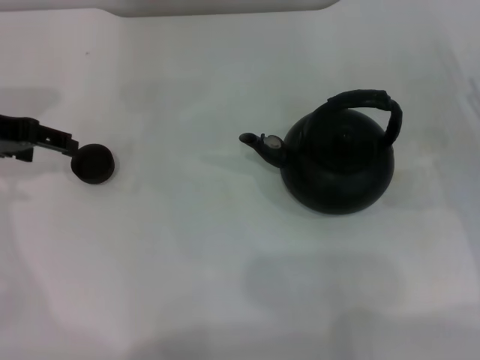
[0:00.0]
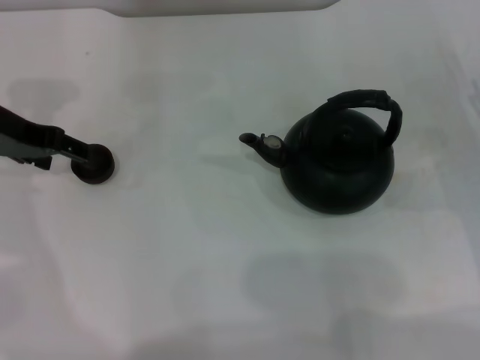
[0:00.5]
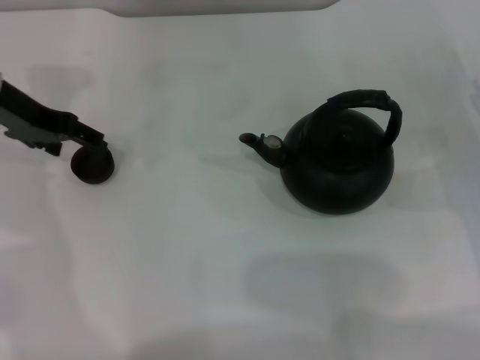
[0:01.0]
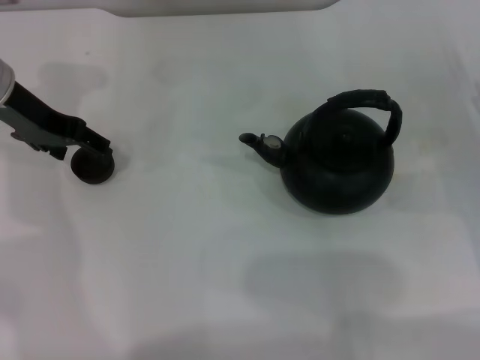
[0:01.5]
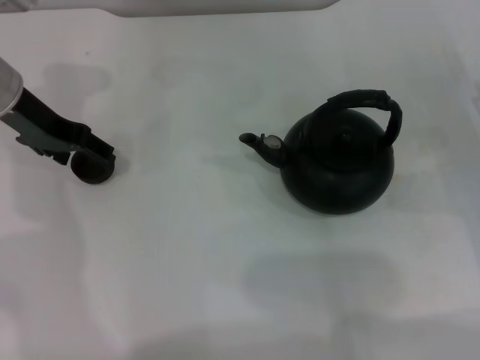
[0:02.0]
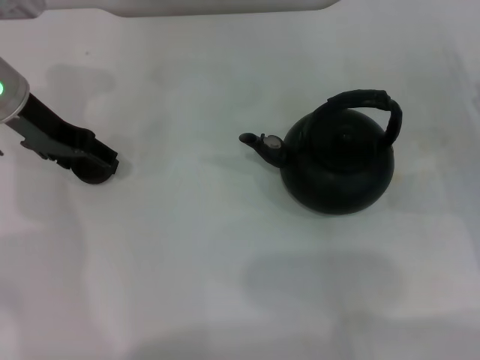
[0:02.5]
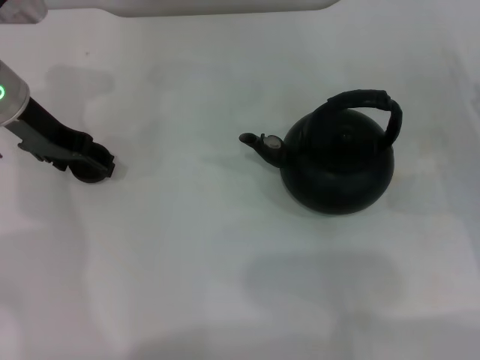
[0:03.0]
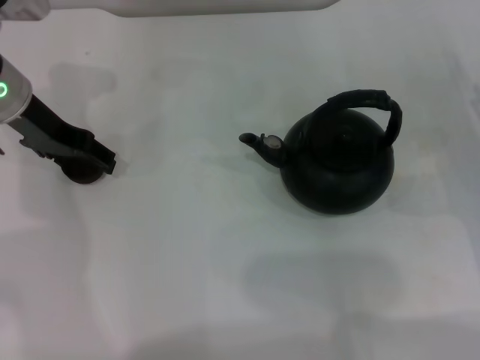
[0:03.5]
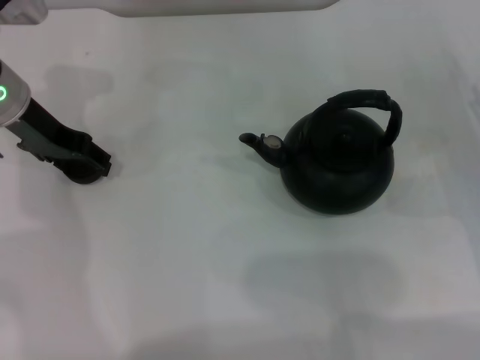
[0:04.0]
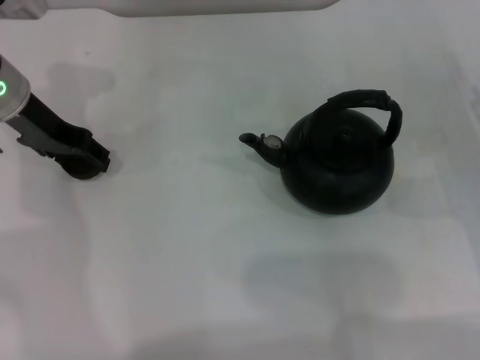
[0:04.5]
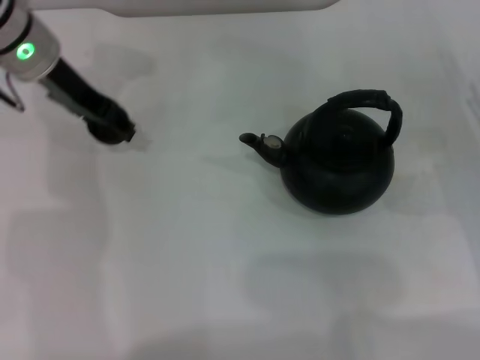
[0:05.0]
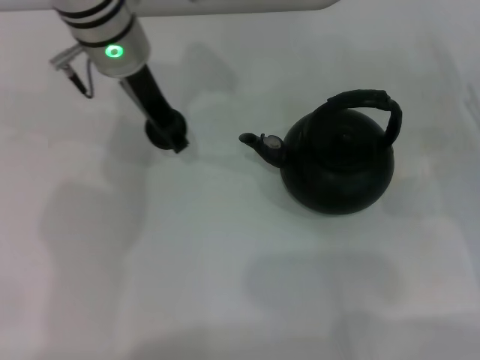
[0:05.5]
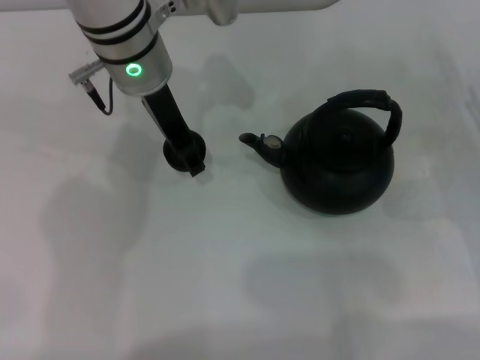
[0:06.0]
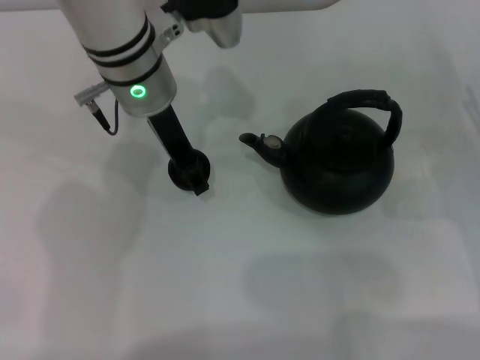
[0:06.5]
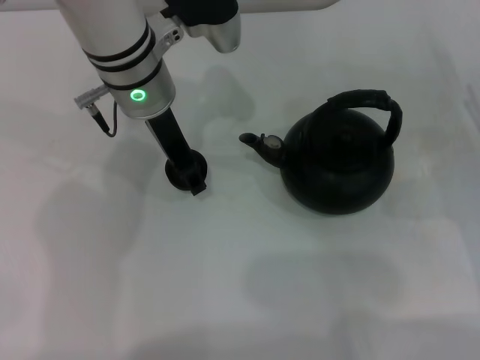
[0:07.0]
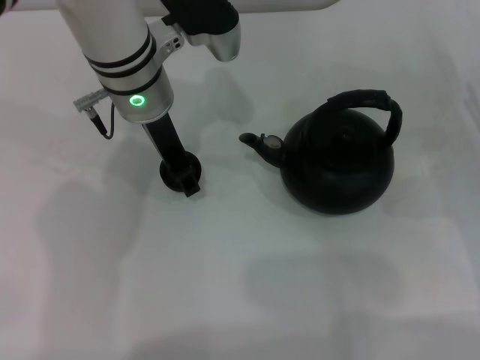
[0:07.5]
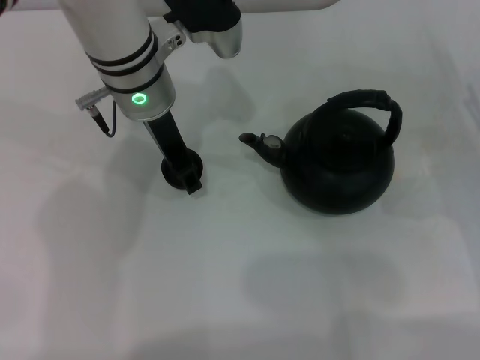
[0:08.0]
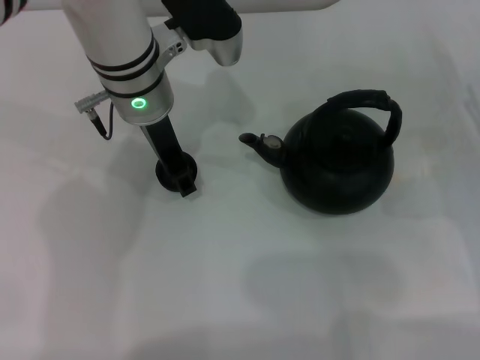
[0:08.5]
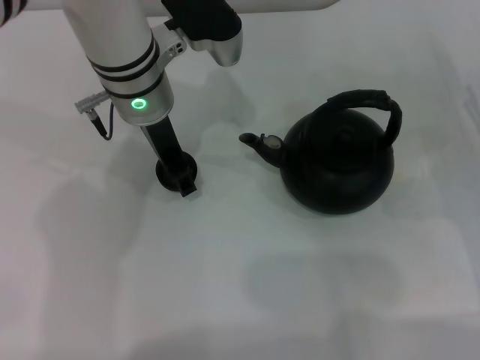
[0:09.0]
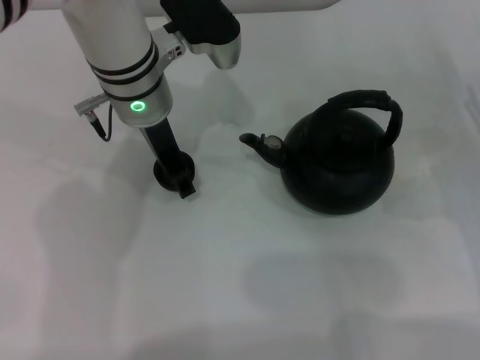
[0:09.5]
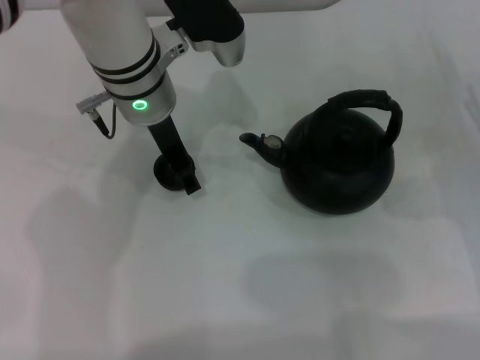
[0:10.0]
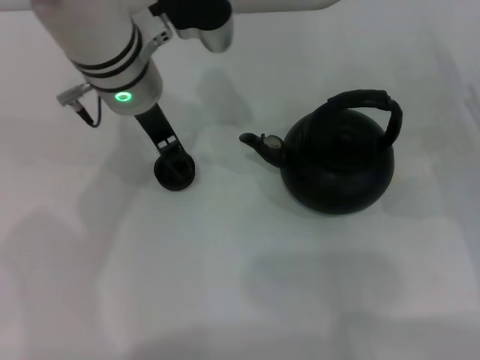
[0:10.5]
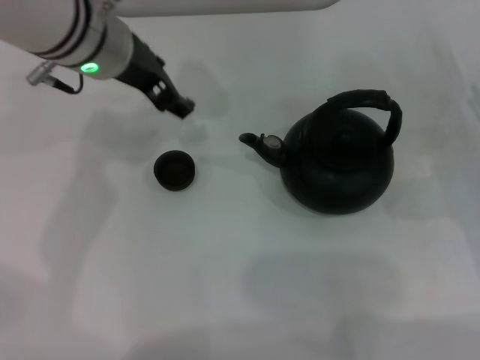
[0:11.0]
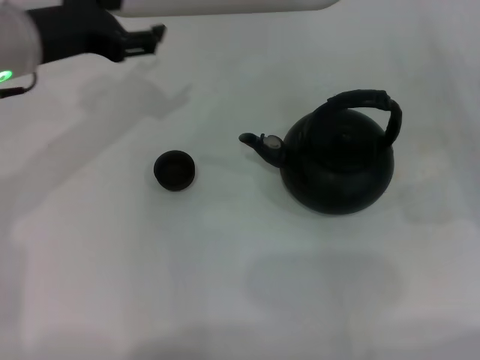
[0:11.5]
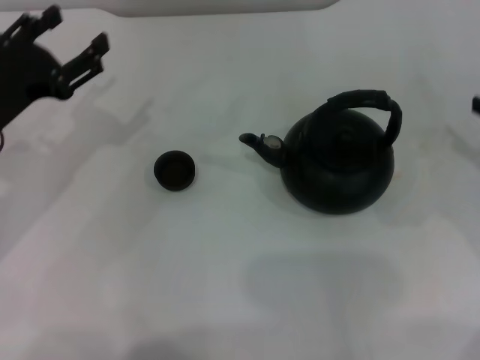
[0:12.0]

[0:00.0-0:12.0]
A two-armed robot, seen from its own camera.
Task of the whole recording: Grasp the handle of the teapot with one hand and pour tea into the teacup.
Step, 0:00.0 to 0:04.5: Pick up the teacup with the left gripper.
Step, 0:05.0 to 0:10.5: Place the teacup in the center of view with the left gripper.
0:00.0 to 0:02.0: The left gripper goes roughly 5 cm to the right and forward.
0:02.0 to 0:04.0: Neither gripper changes place.
0:04.0 to 0:06.0: The left gripper shifts approximately 15 cm to the right, and closes its fingers.
0:06.0 to 0:08.0: There are only small adjustments of the grippers.
0:08.0 to 0:10.0: The left gripper opens its fingers.
0:10.0 to 0:12.0: The left gripper shifts approximately 20 cm to the left and backward. The right gripper shifts approximately 5 cm upward.

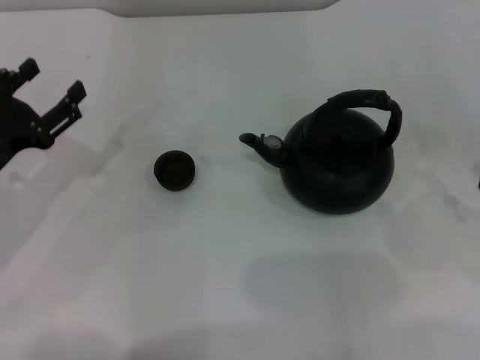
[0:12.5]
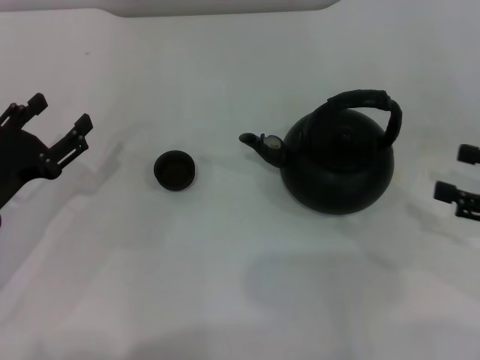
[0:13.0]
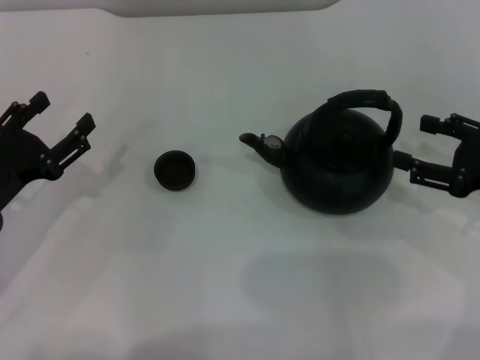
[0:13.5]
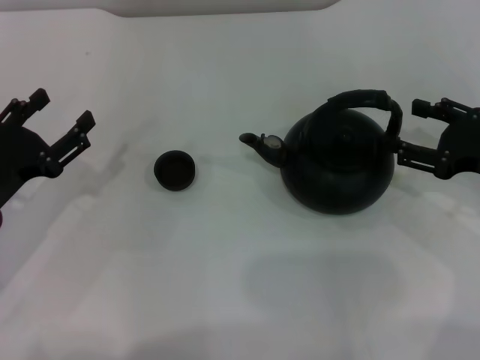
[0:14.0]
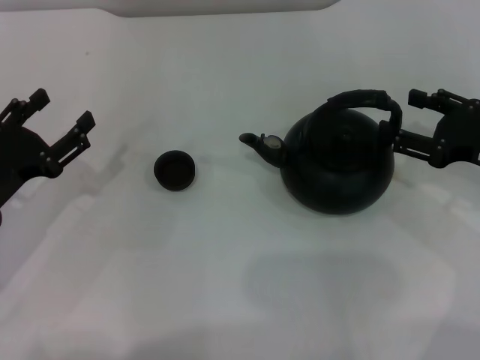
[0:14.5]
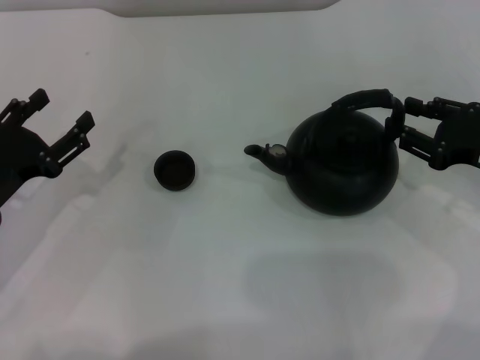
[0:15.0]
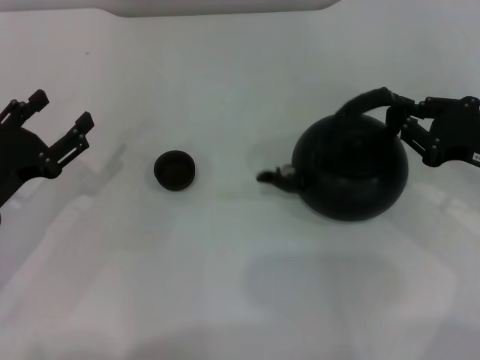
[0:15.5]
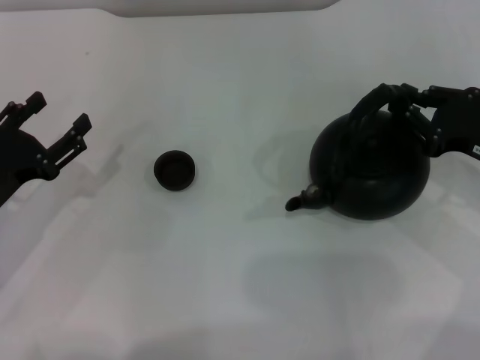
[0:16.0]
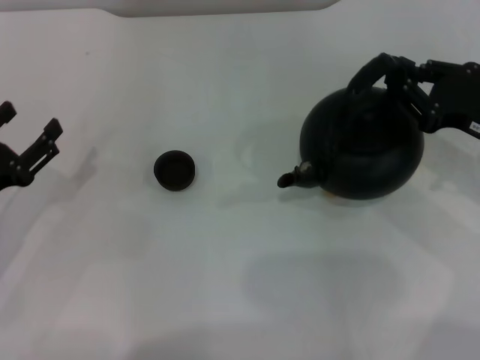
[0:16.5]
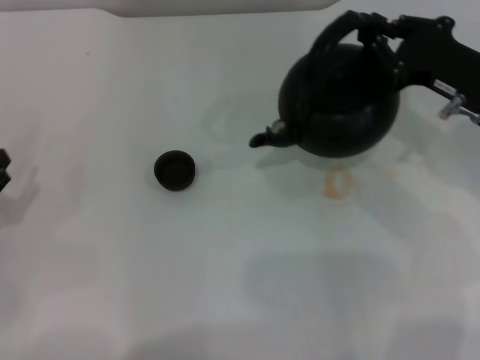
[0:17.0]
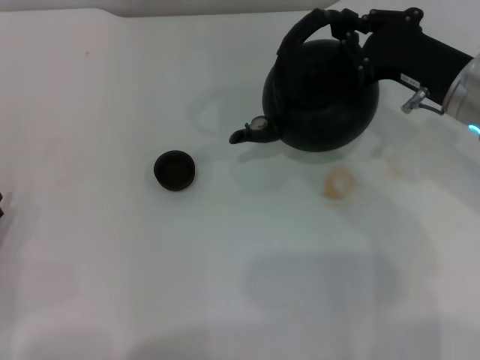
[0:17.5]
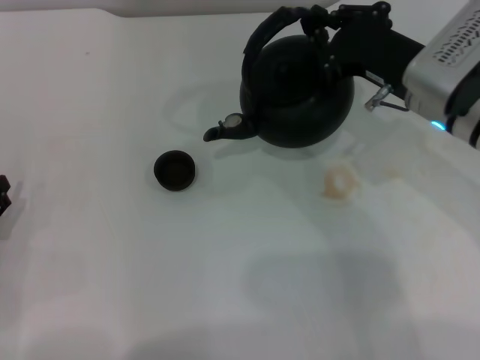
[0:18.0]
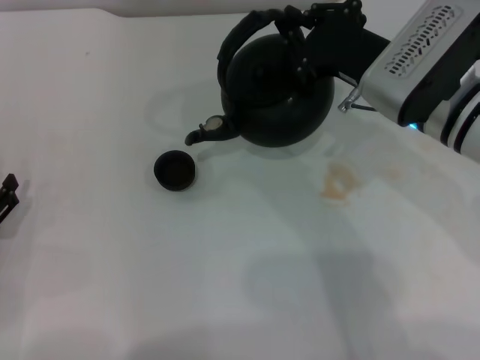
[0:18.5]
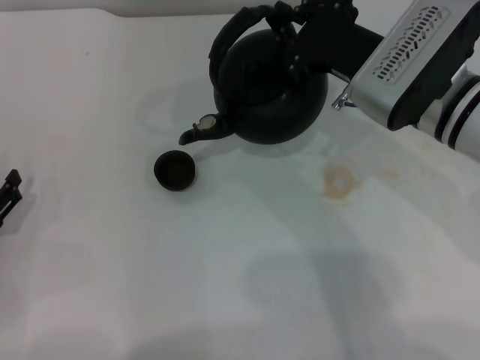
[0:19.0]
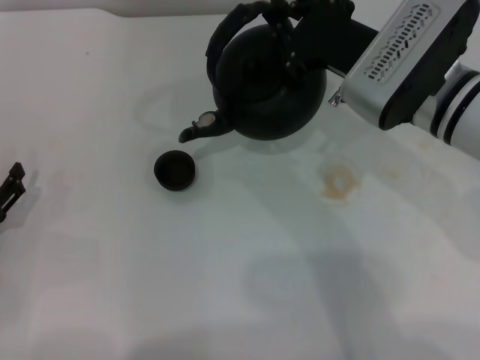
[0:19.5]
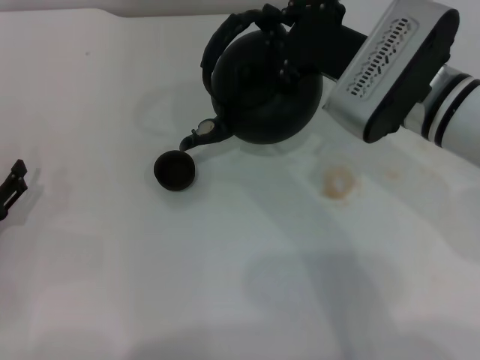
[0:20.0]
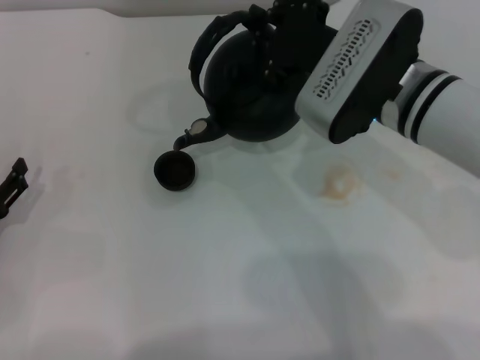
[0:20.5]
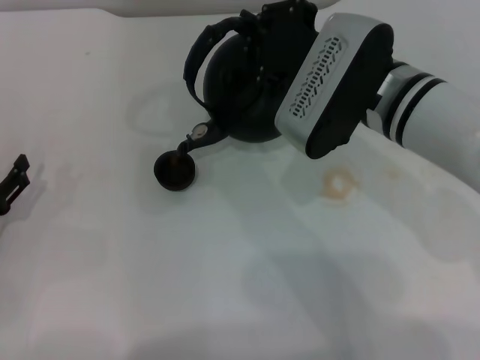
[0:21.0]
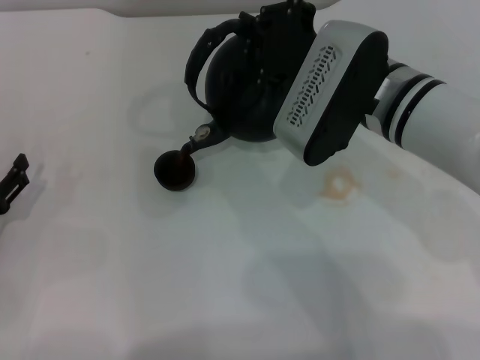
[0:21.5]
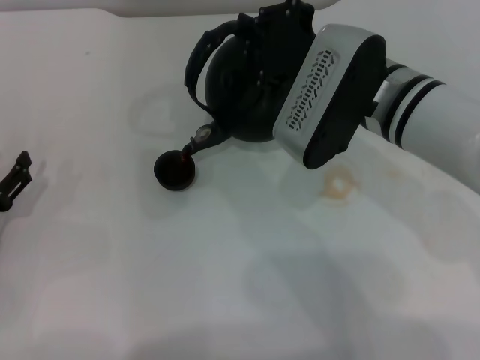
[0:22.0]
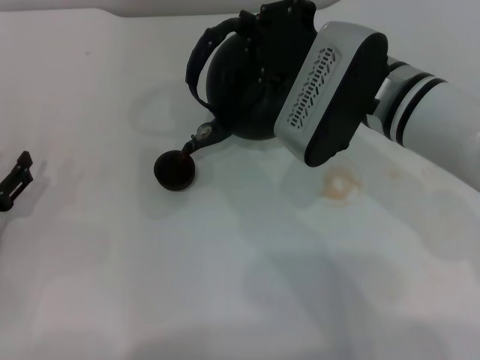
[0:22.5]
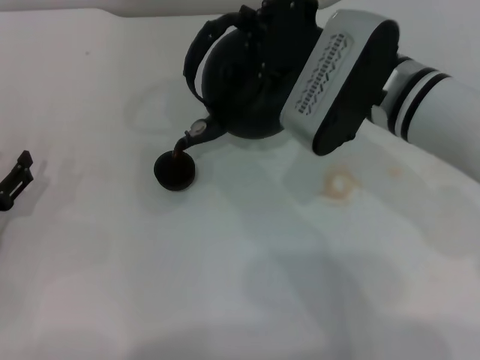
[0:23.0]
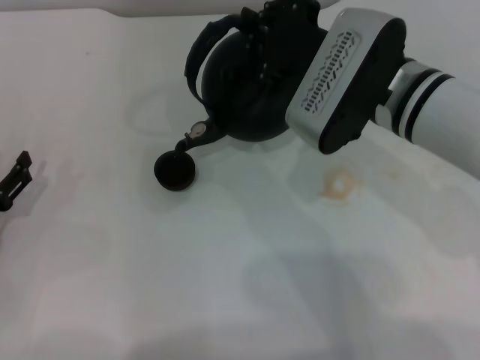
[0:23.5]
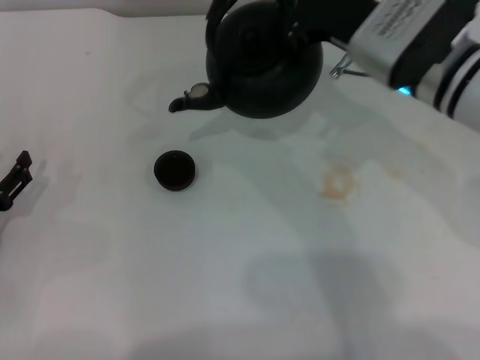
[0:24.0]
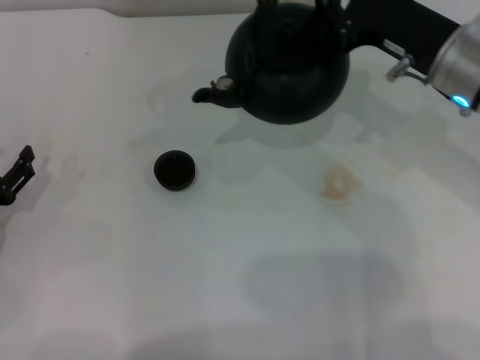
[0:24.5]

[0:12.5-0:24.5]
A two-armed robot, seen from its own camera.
Task of the whole recording: Grasp the handle of the teapot with one hand and pour tea into the teacup.
Step, 0:12.5 to 0:16.5: Pick up the teapot with the right gripper.
Step, 0:17.0 to 0:23.5: Pour tea into the teacup with the right gripper.
0:12.5 to 0:14.5: The right gripper goes about 10 cm to the left and forward.
0:14.5 to 0:16.5: The right gripper closes.
0:16.5 to 0:18.5: The left gripper ends up roughly 5 cm from where it was. The right gripper shifts approximately 15 cm to the left.
0:18.5 to 0:20.5: The grippers stay close to where they were, moving slightly.
0:20.5 to 0:22.5: The grippers stay close to where they were, moving slightly.
0:22.5 to 0:24.5: The right gripper moves to the right, roughly 10 cm.

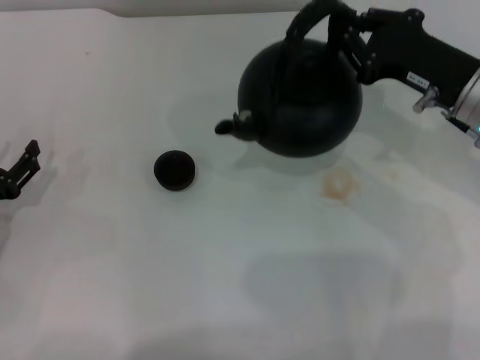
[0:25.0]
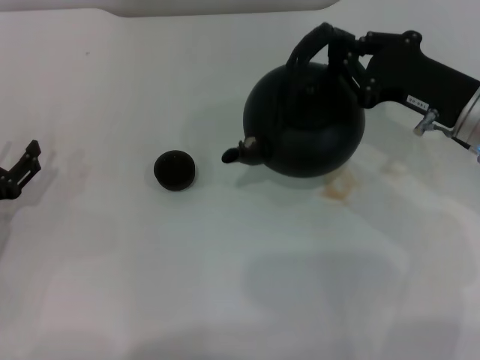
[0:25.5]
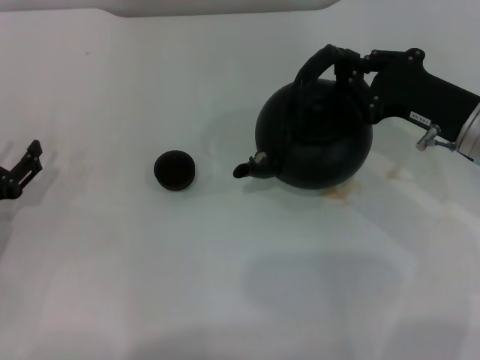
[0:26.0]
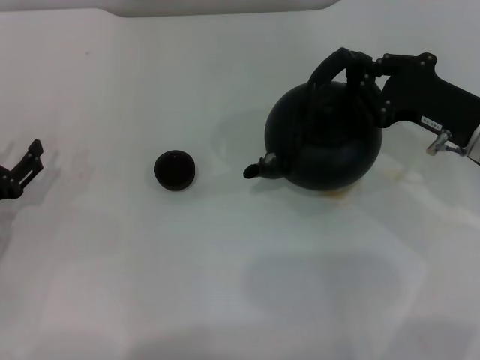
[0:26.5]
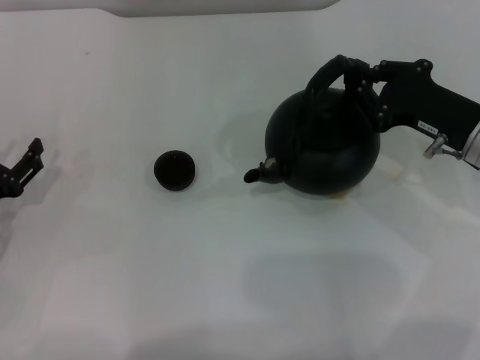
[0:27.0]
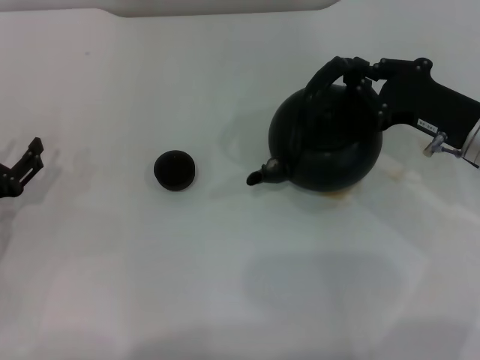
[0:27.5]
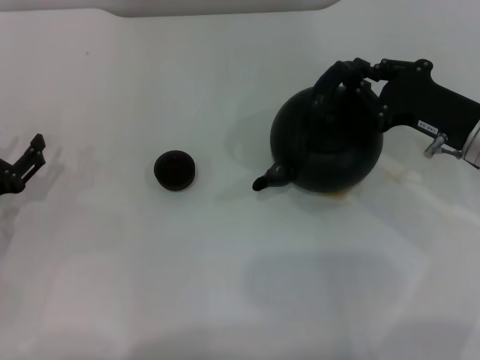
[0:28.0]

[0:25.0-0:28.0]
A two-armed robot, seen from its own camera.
Task of the whole recording: Grasp the handle of the teapot with one hand and pour tea into the teacup.
0:25.0 to 0:26.5: The grippers move only a little.
0:26.5 to 0:28.0: Neither gripper changes place.
